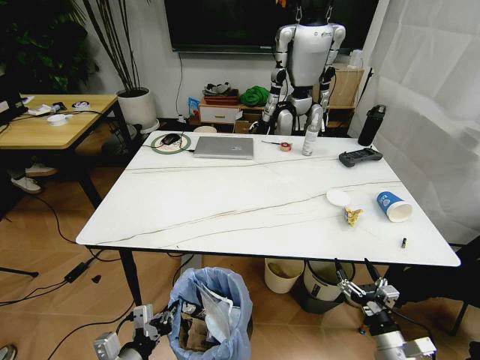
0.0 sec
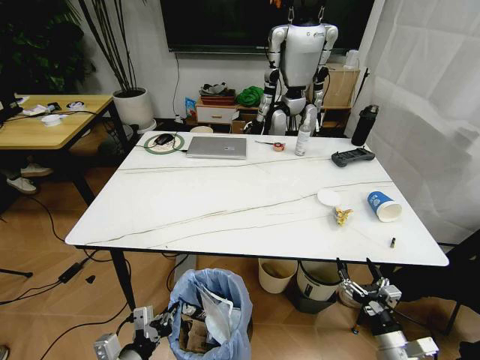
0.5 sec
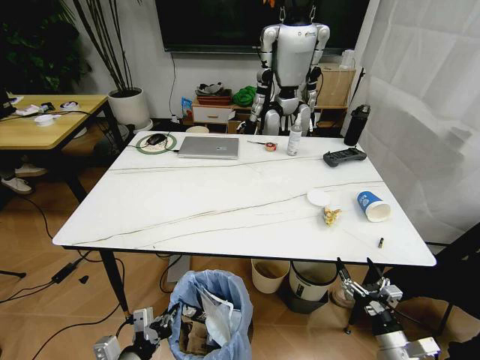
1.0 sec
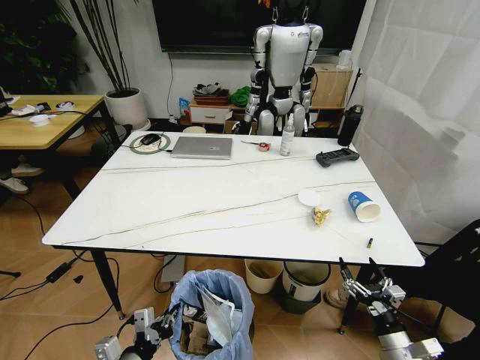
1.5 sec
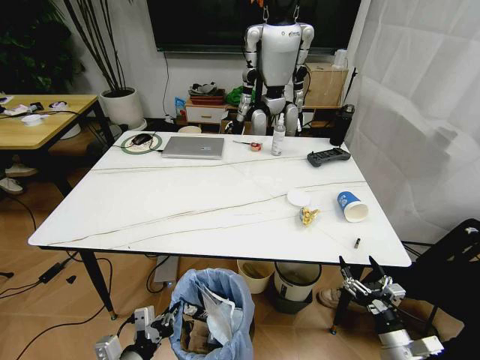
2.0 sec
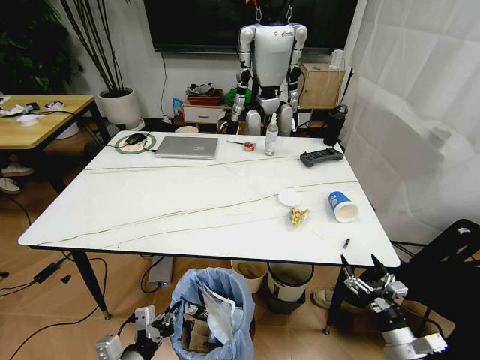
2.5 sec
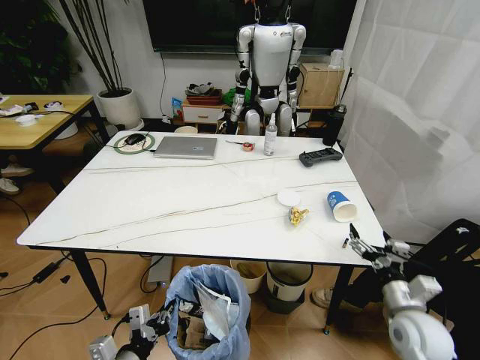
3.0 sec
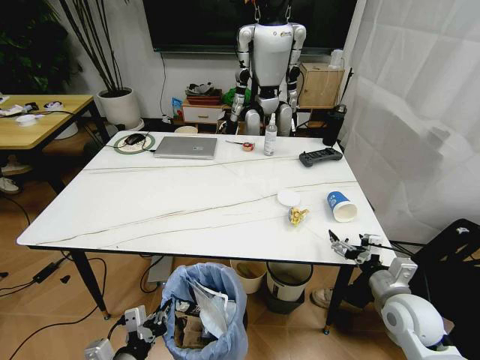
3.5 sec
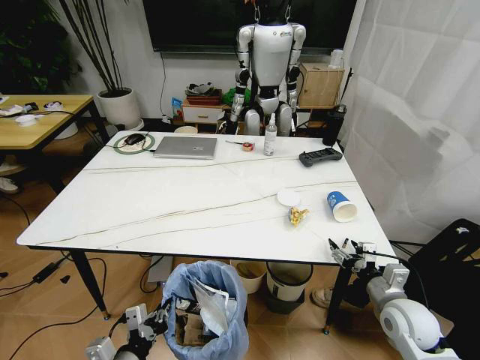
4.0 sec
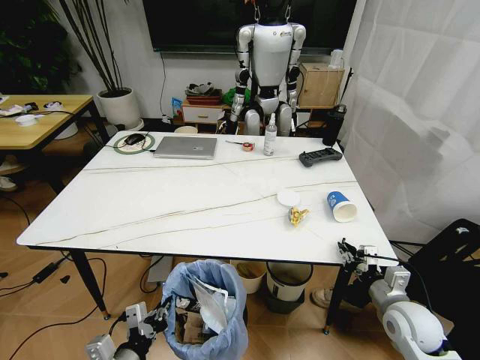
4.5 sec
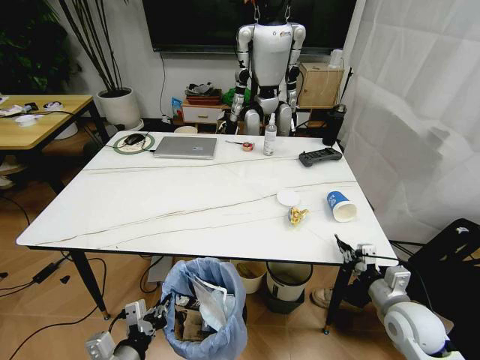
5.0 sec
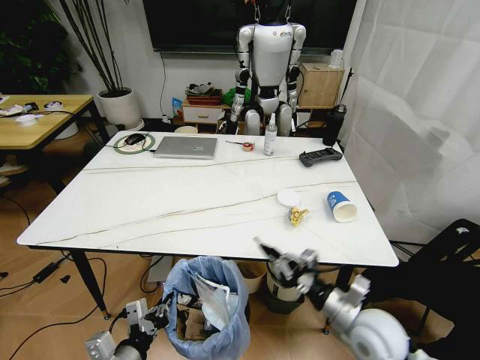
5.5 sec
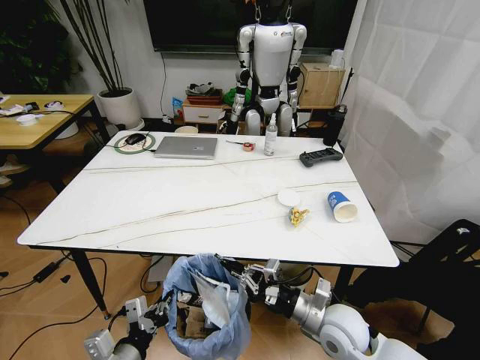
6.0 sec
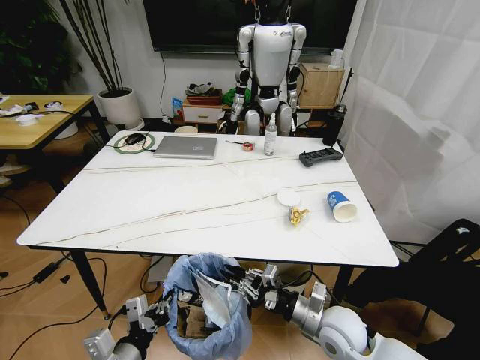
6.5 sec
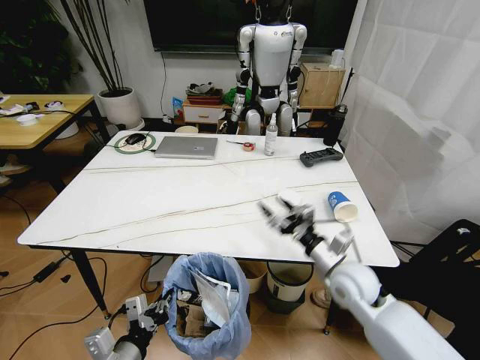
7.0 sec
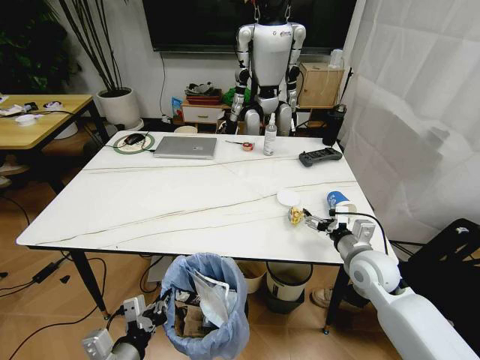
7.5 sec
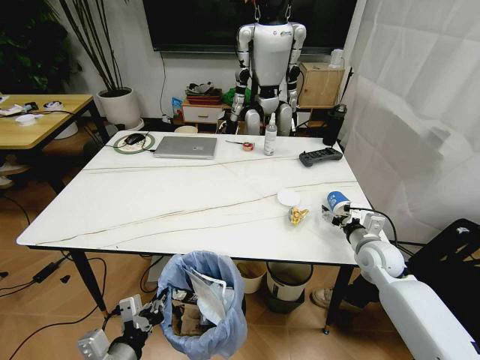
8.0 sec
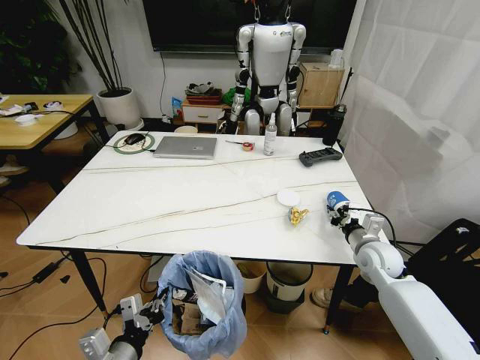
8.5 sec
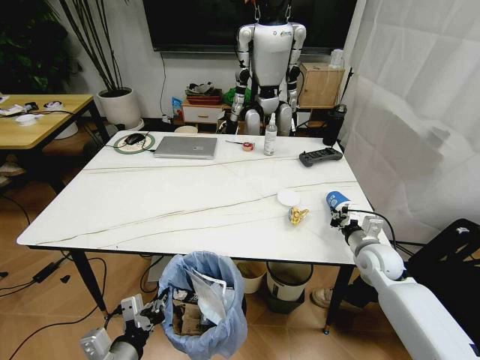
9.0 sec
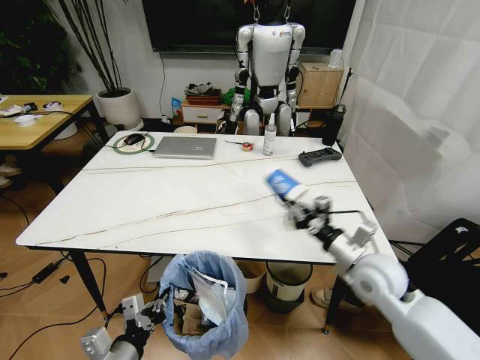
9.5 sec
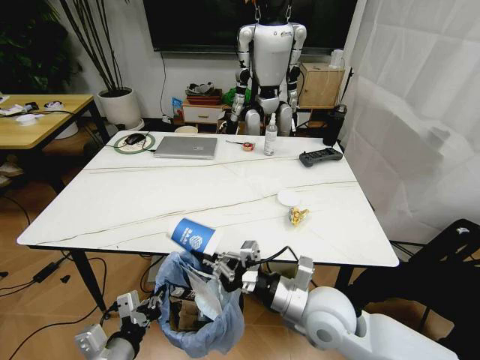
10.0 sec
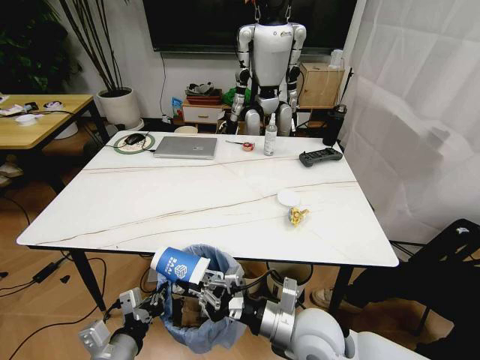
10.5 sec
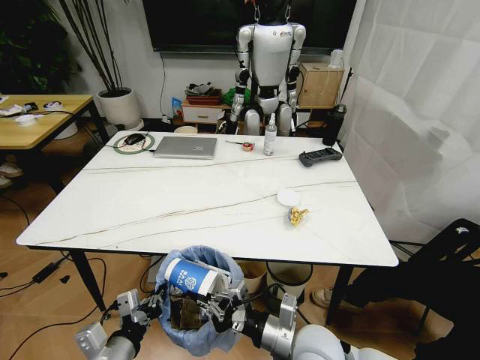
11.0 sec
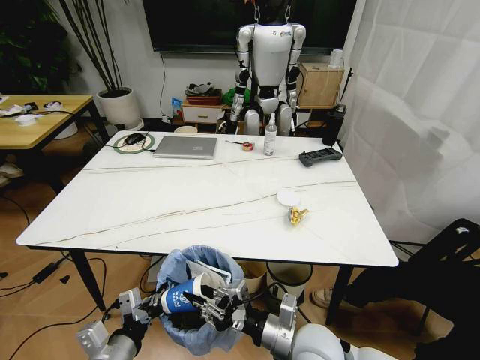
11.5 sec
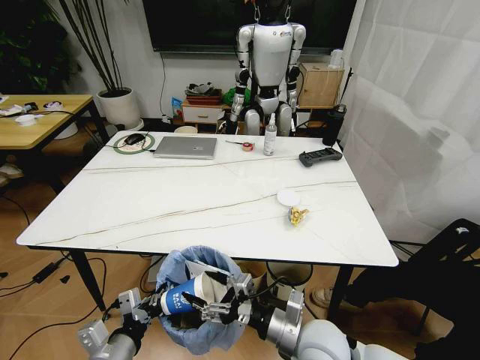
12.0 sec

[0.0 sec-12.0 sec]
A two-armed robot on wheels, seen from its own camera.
Task of the whole recording: Pick up the trash bin and place the trash from the table into it.
2.0 sec to 4.0 sec: The right gripper heads forward and upward, covering some 15 cm.
4.0 sec to 6.0 sec: The right gripper shifts some 15 cm to the left, and closes up.
6.0 sec to 8.0 sec: The right gripper travels forward and to the right by approximately 20 cm, and opens its fingers.
8.0 sec to 10.0 sec: The right gripper heads to the left and backward, covering roughly 25 cm, and closes its fingers.
10.0 sec to 12.0 sec: The right gripper goes about 5 cm downward, and opens its fingers.

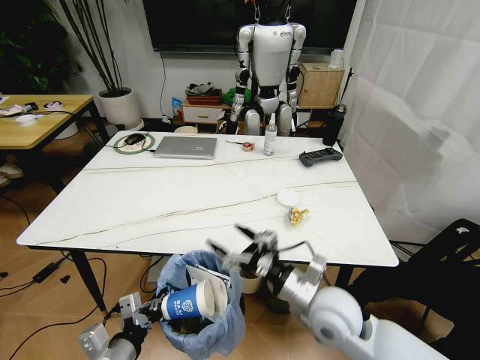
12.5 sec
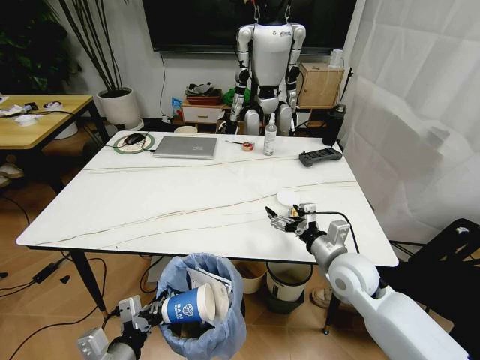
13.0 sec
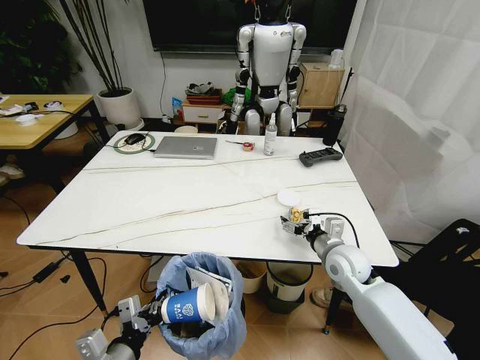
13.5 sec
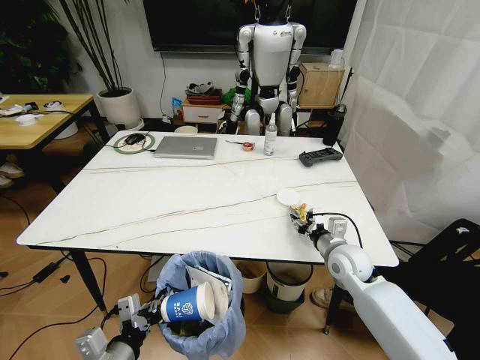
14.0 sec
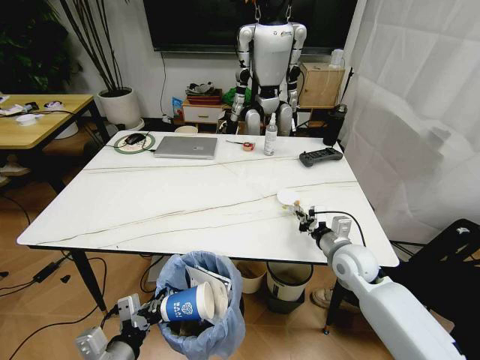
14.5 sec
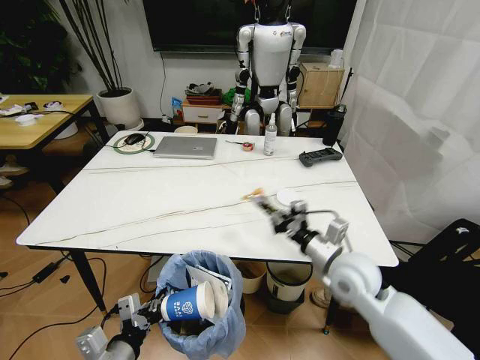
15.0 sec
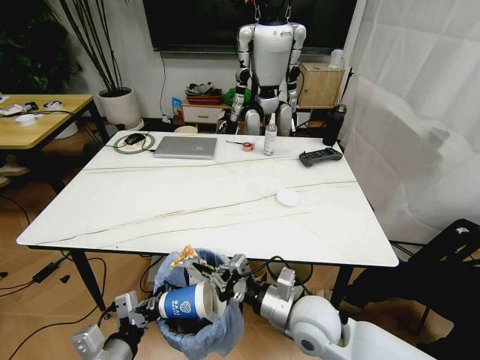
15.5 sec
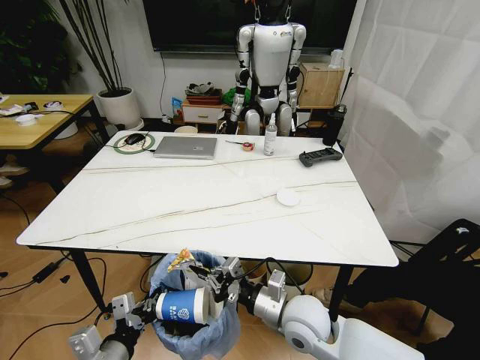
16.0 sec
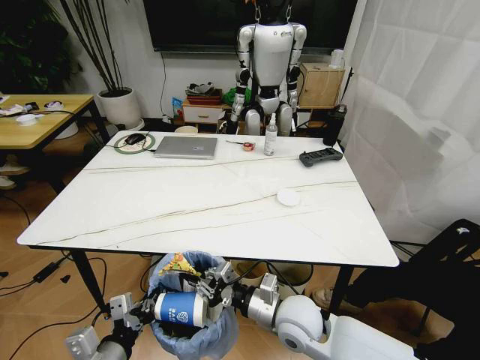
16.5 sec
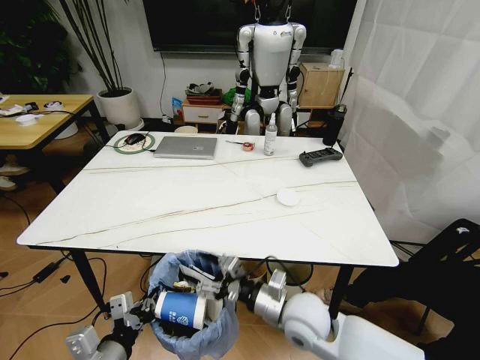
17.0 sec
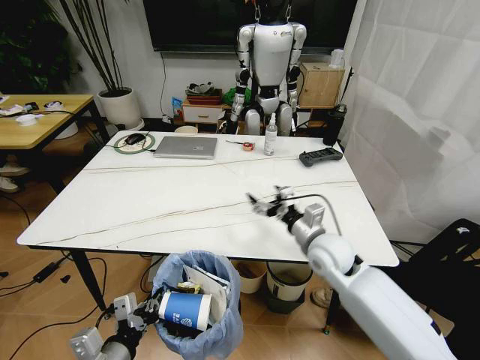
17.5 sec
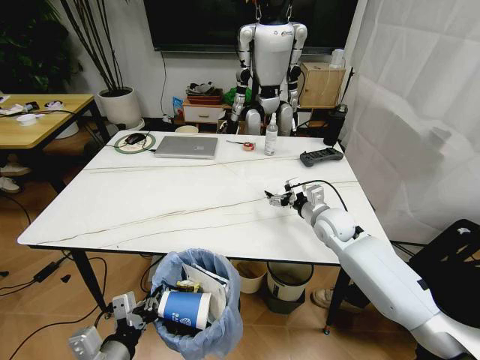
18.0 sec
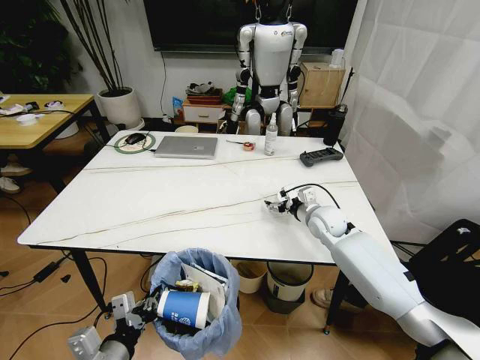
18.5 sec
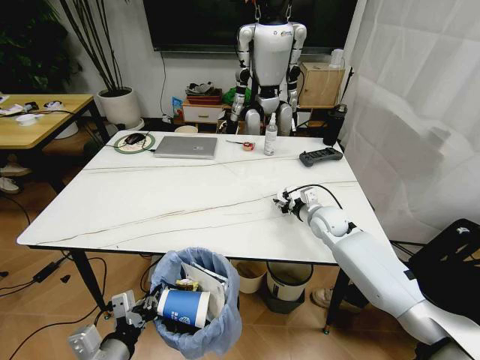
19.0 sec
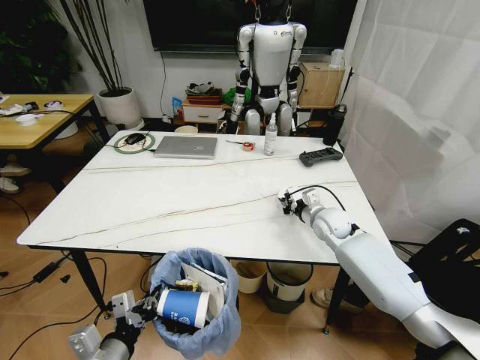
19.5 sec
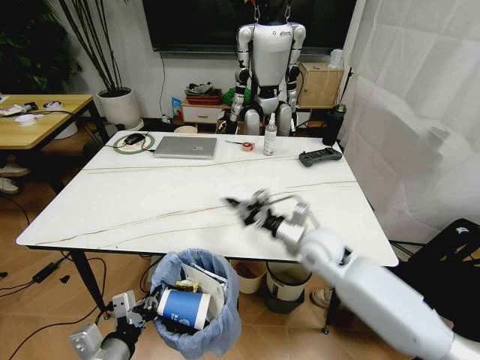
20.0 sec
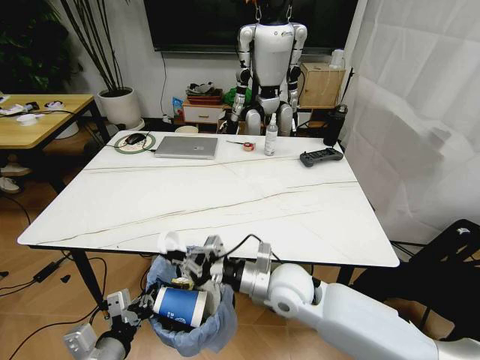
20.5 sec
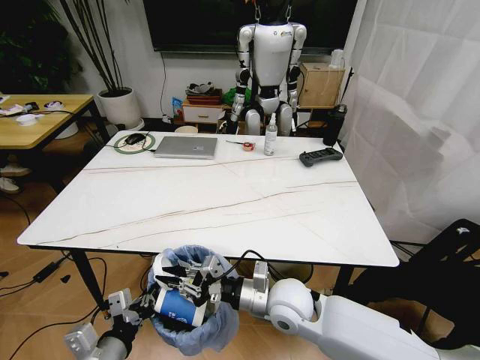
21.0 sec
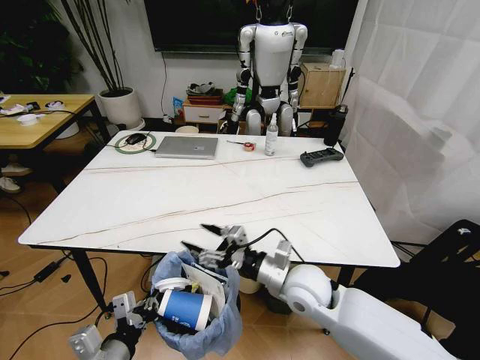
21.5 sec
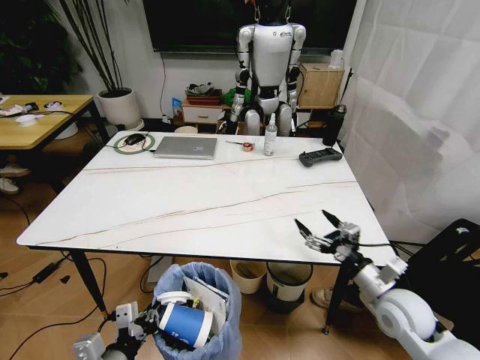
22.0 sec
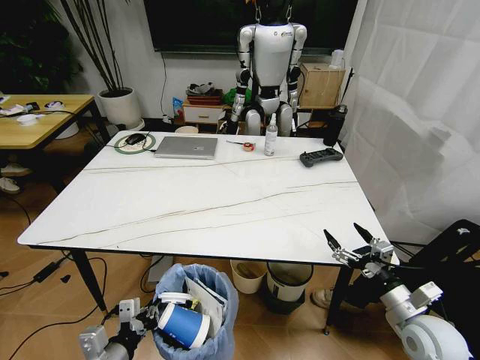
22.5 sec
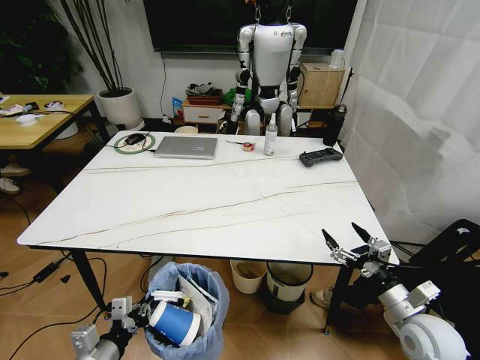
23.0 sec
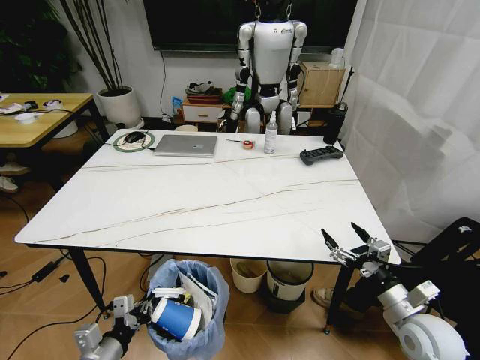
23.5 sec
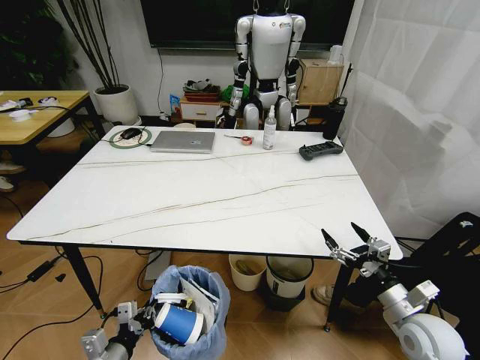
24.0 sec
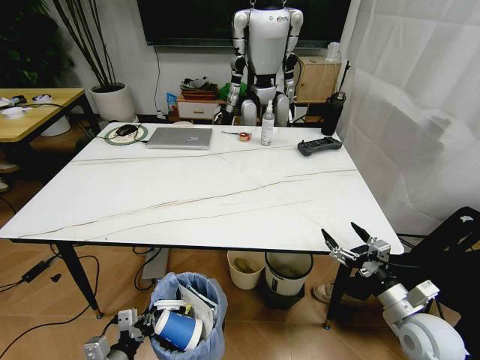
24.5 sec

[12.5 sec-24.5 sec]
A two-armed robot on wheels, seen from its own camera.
Task of the whole recording: Pick up the trash bin and place the trash from the table into it.
12.5 sec to 14.5 sec: The right gripper travels forward and to the right by about 15 cm, and closes up.
14.5 sec to 16.5 sec: The right gripper goes some 20 cm to the left and backward.
16.5 sec to 18.5 sec: The right gripper heads forward and to the right, covering roughly 25 cm, and opens up.
18.5 sec to 20.5 sec: The right gripper is displaced backward and to the left by roughly 25 cm, and closes.
20.5 sec to 22.5 sec: The right gripper travels to the right by roughly 30 cm, and opens up.
22.5 sec to 24.5 sec: The left gripper heads downward, covering roughly 5 cm.

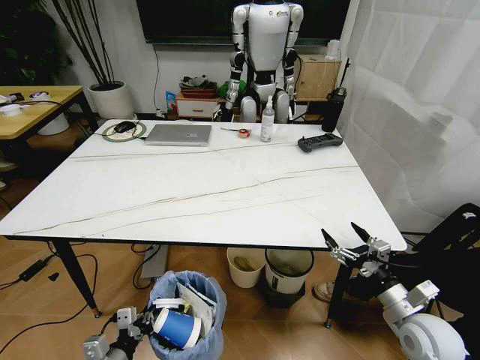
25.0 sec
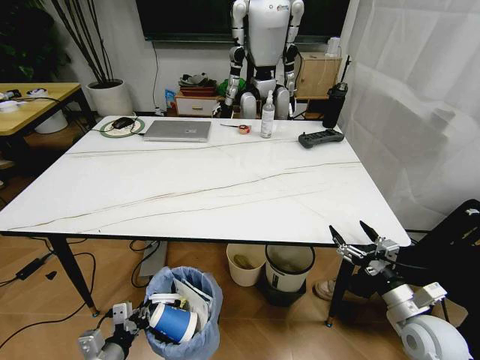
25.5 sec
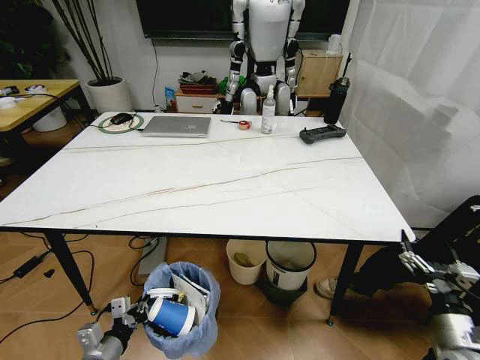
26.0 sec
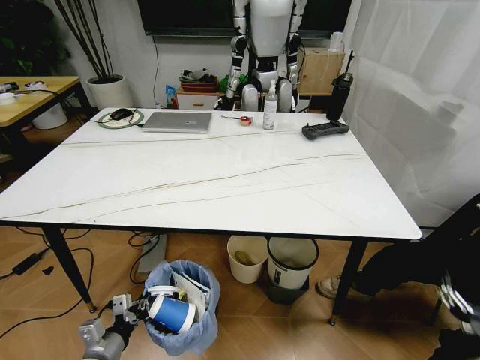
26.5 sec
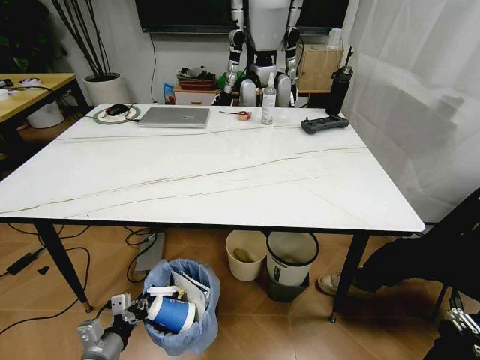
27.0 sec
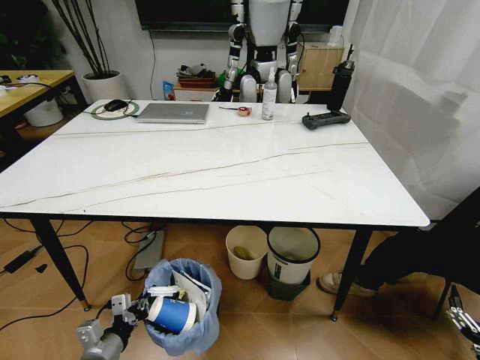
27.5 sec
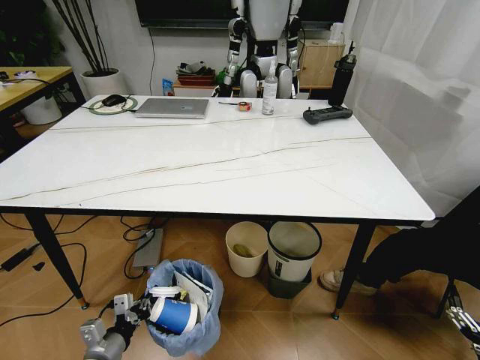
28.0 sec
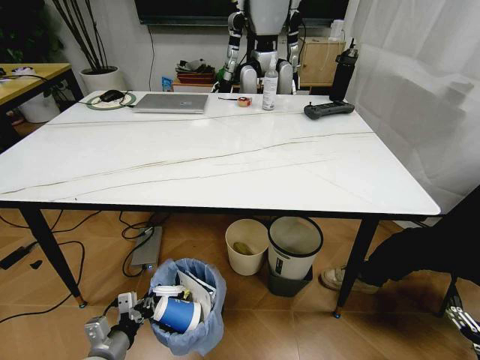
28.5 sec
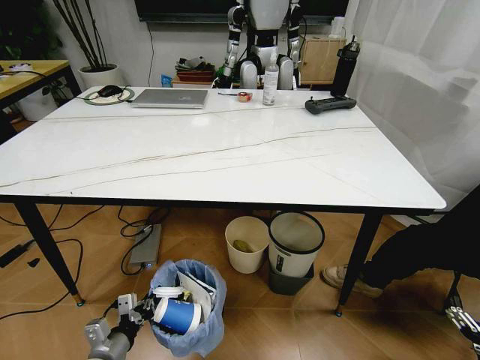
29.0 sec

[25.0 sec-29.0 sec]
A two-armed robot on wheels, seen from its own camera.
Task of the whole recording: Pick up the trash bin and place the trash from the table into it.
25.0 sec to 27.0 sec: The right gripper heads backward, to the right and downward, covering roughly 20 cm.
